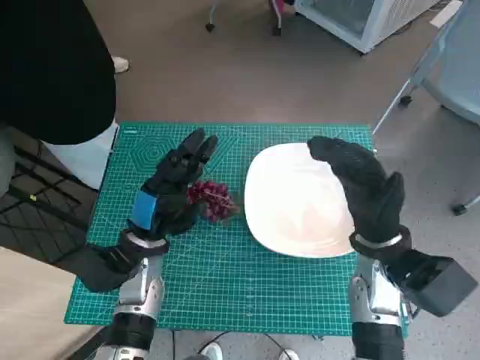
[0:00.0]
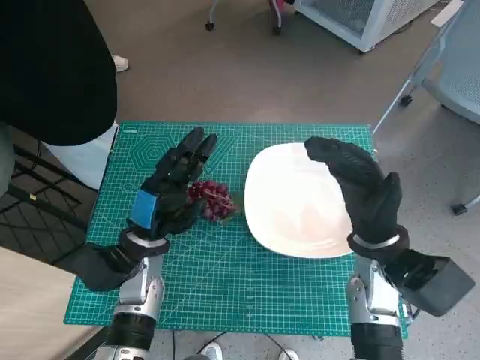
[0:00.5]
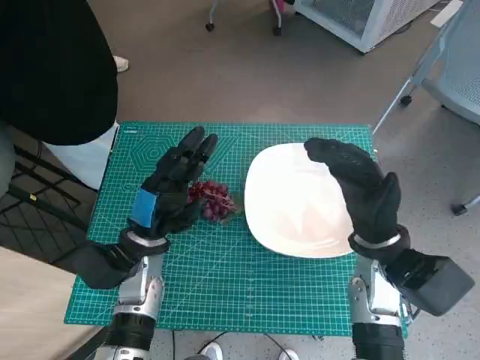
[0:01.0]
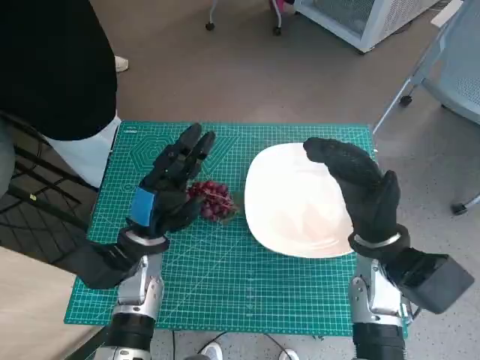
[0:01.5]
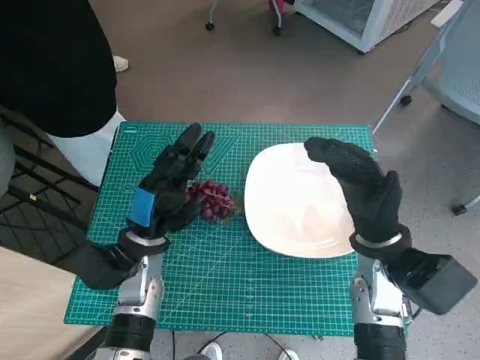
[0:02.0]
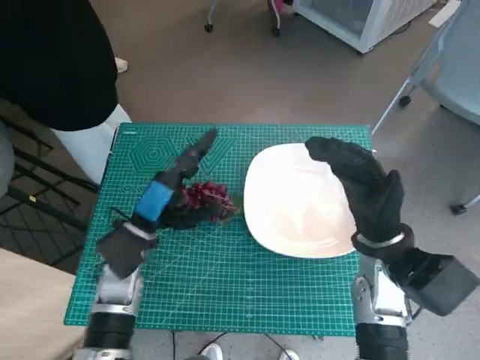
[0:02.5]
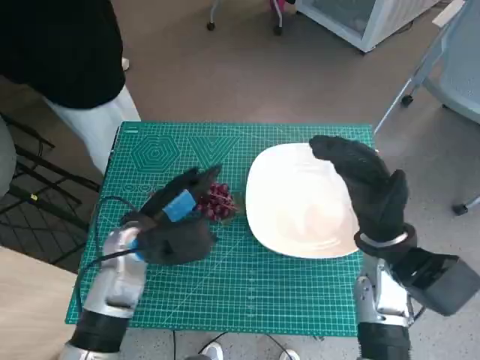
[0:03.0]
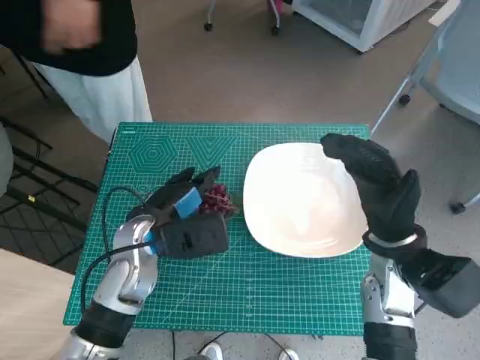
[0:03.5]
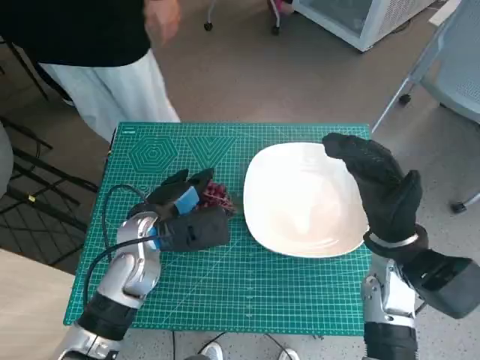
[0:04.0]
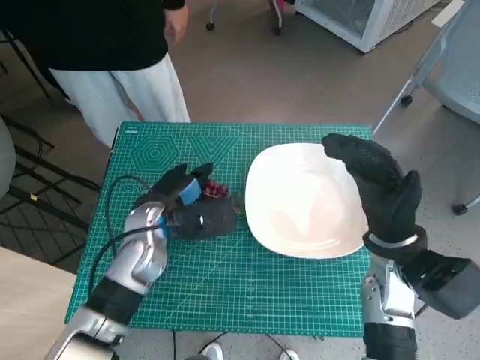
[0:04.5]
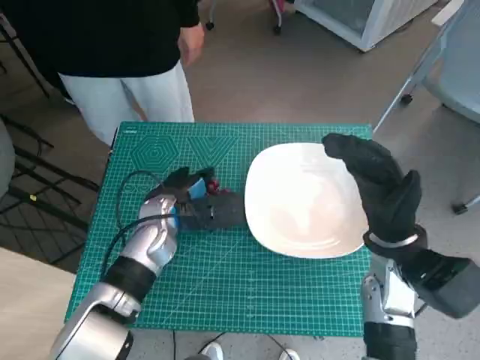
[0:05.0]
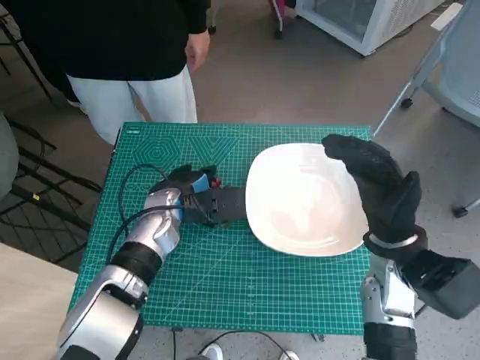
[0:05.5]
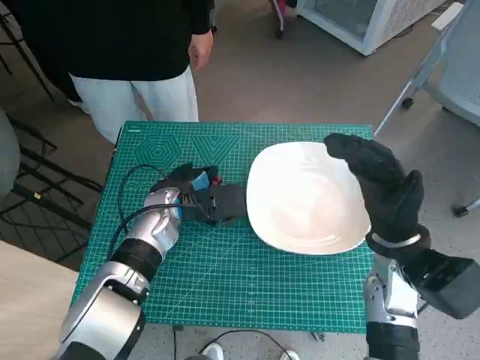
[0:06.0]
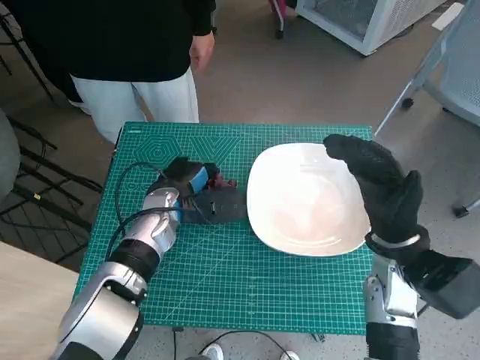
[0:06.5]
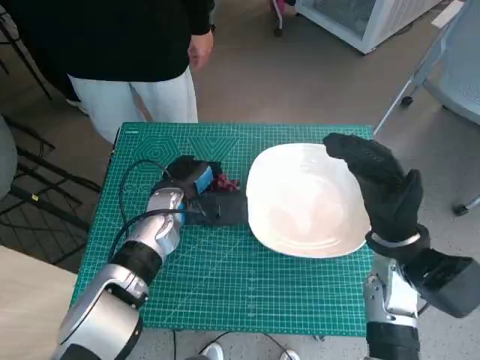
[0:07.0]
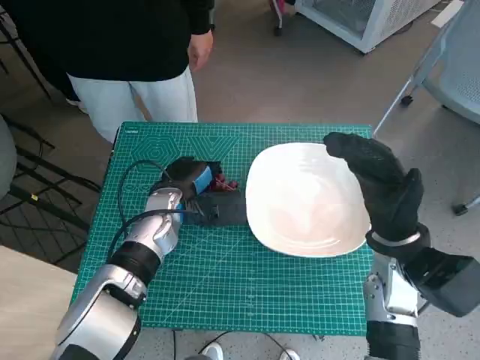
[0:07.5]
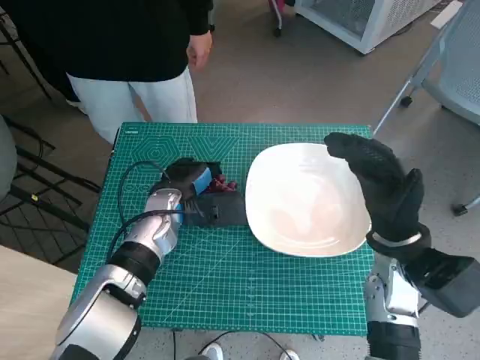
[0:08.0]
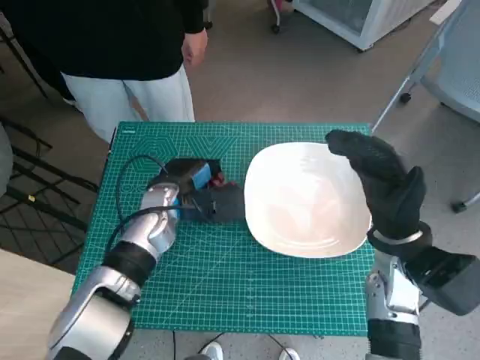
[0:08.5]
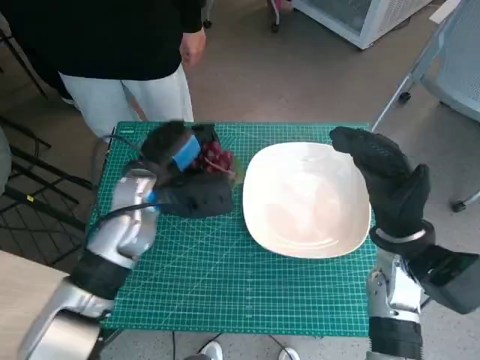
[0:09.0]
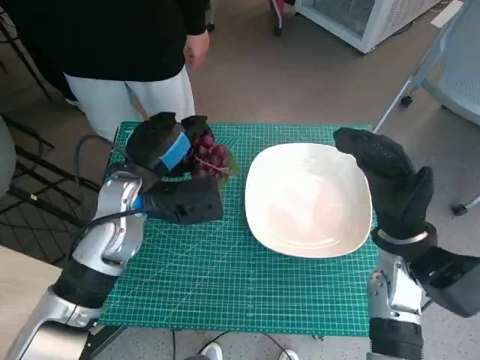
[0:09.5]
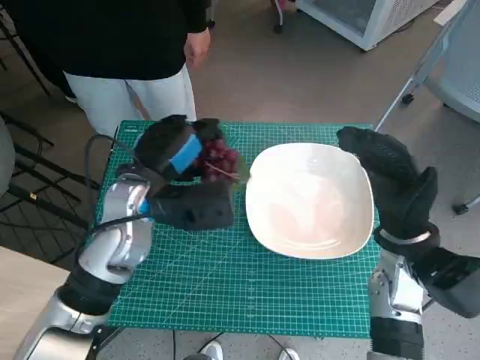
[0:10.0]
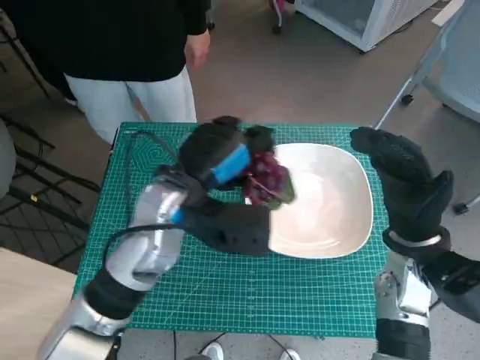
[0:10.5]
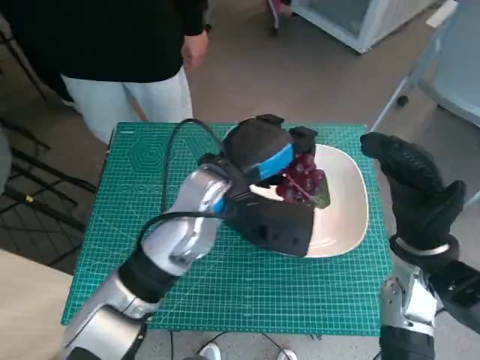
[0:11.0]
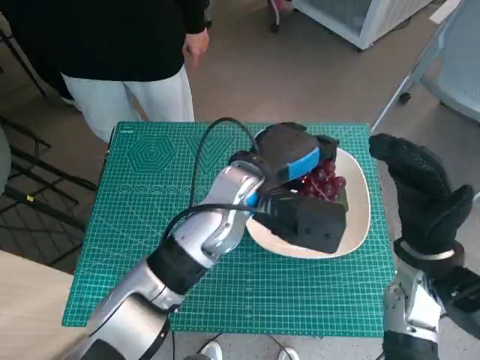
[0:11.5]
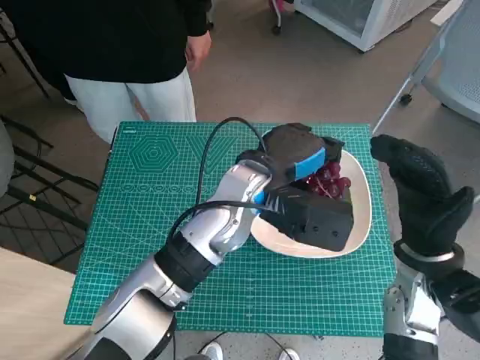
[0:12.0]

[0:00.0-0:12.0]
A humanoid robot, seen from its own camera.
Task of the whole recording: Pick up the grapes and put them on the plate.
Step, 0:00.0 to 0:06.5: Grasp the grapes with left hand.
0:04.0 to 0:06.0: The left hand travels forward by roughly 5 cm.
0:06.0 to 0:08.0: There are only small adjustments of the hands.
0:08.0 to 0:10.0: The left hand travels upward by about 10 cm.
0:10.0 to 0:12.0: The left hand is displaced to the right by roughly 15 cm.

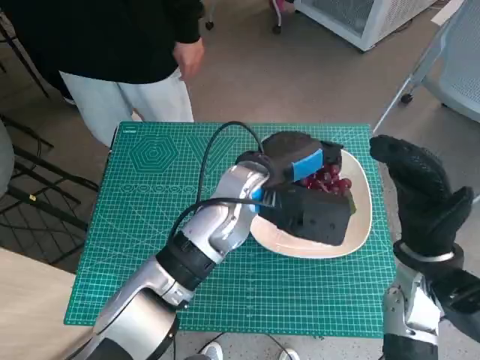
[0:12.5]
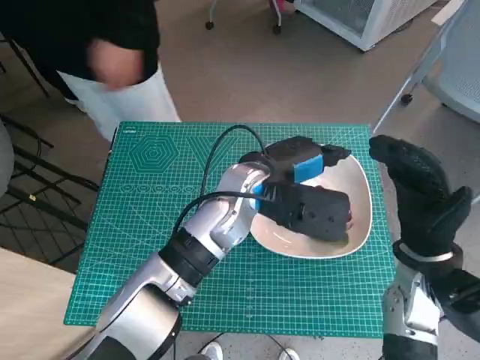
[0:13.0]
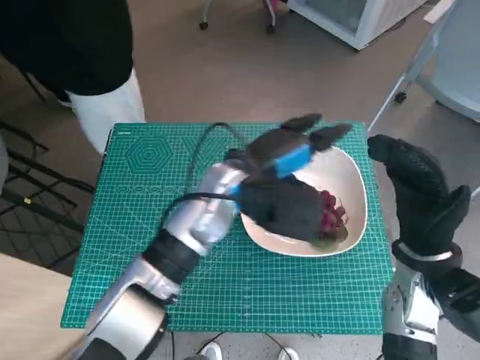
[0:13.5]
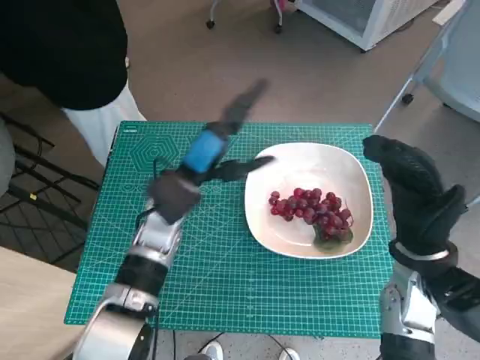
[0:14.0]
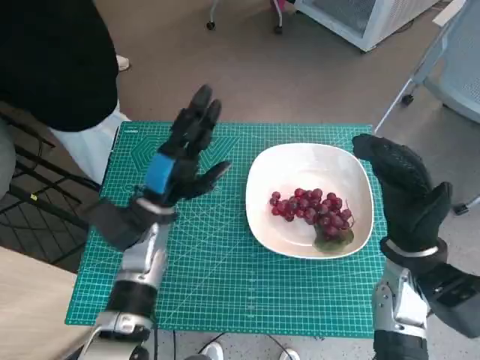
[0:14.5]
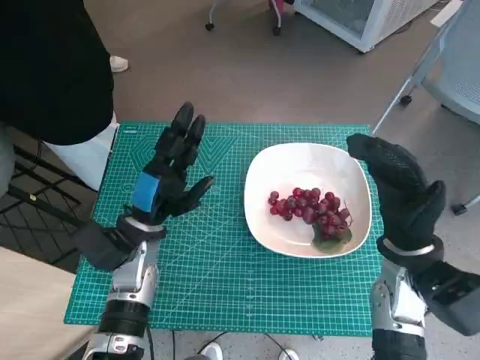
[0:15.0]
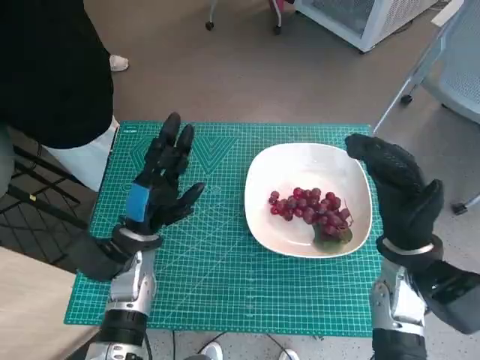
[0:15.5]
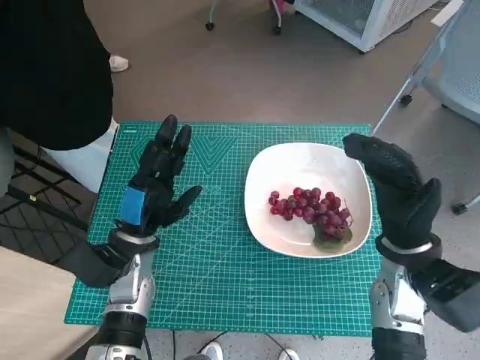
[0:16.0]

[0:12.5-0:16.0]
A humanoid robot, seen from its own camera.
Task of the whole recording: Pick up the grapes and put them on the plate.
0:12.5 to 0:14.5: The left hand is displaced to the left and downward by some 15 cm.
0:14.5 to 0:16.0: The left hand ends up about 5 cm from where it was.

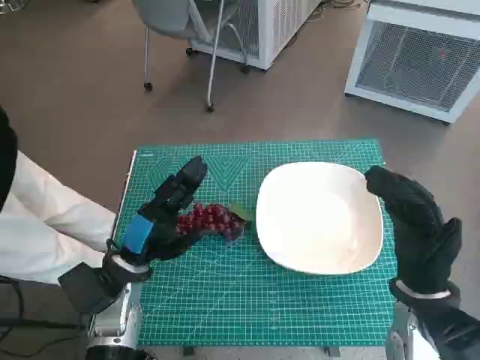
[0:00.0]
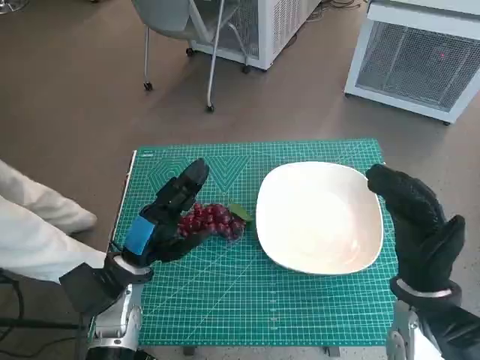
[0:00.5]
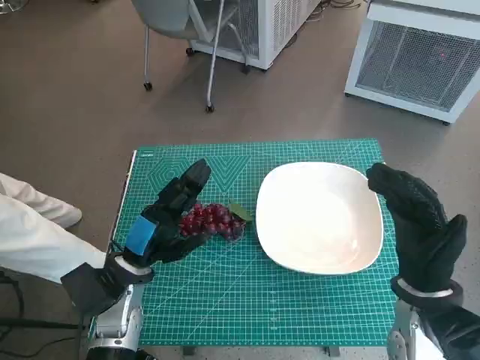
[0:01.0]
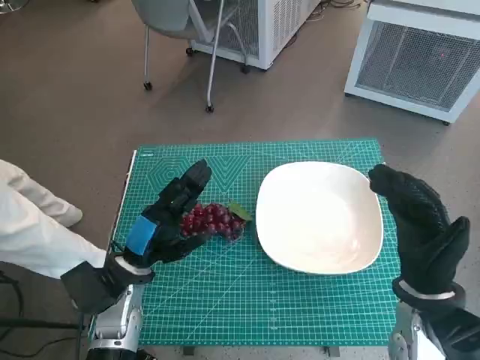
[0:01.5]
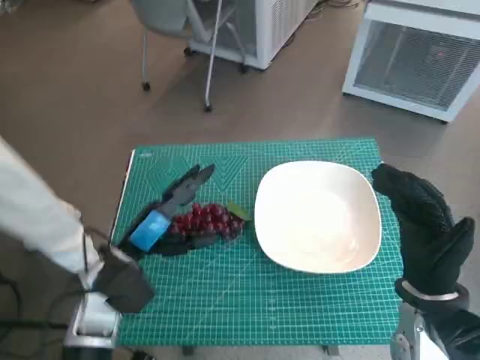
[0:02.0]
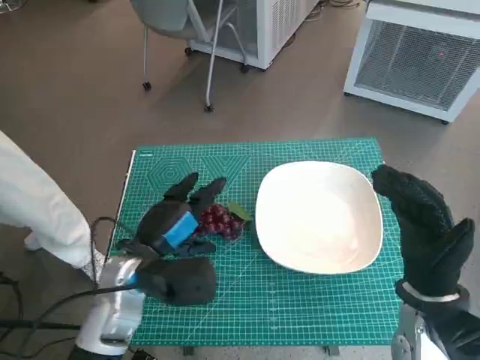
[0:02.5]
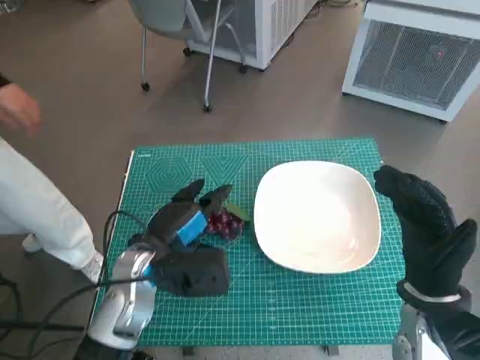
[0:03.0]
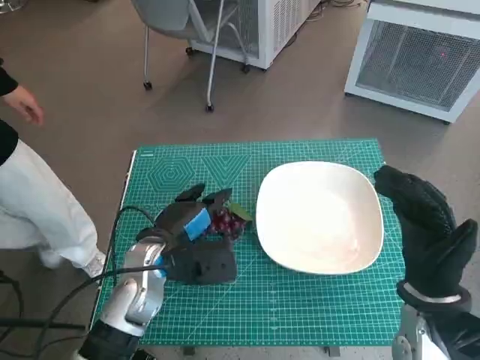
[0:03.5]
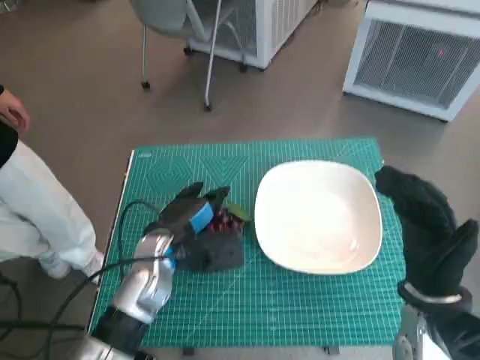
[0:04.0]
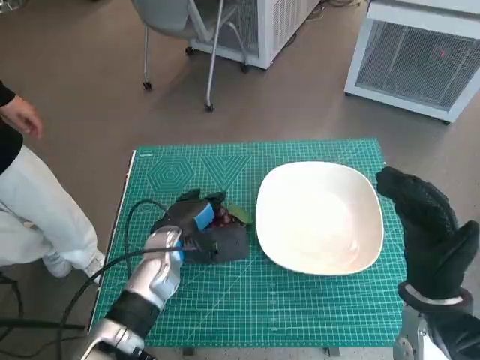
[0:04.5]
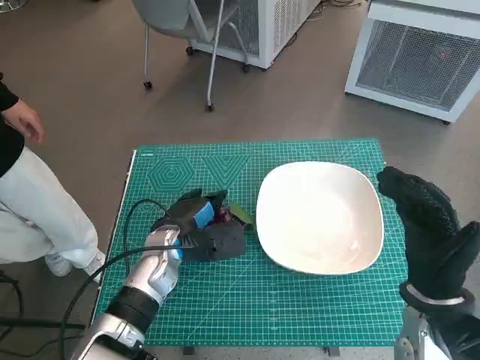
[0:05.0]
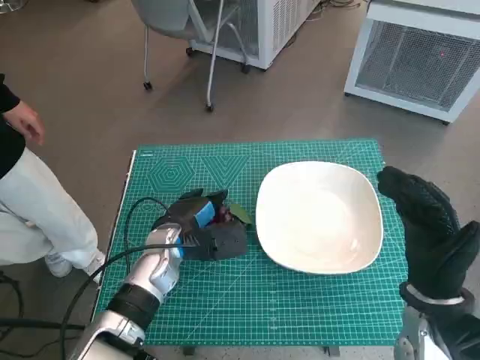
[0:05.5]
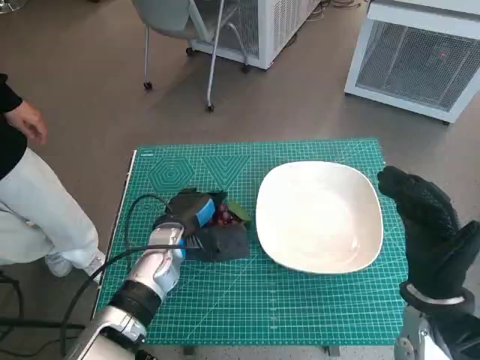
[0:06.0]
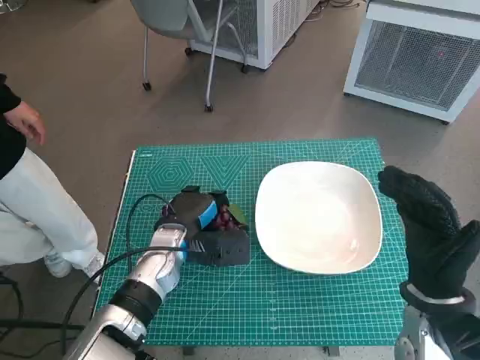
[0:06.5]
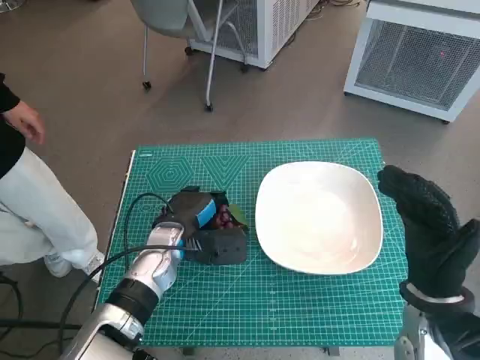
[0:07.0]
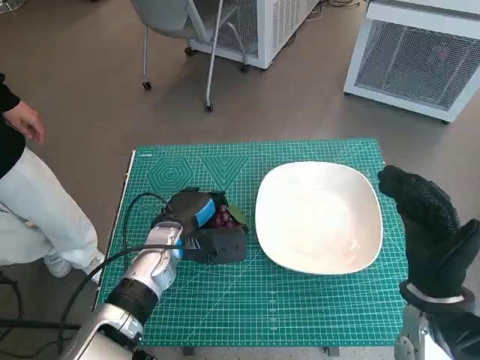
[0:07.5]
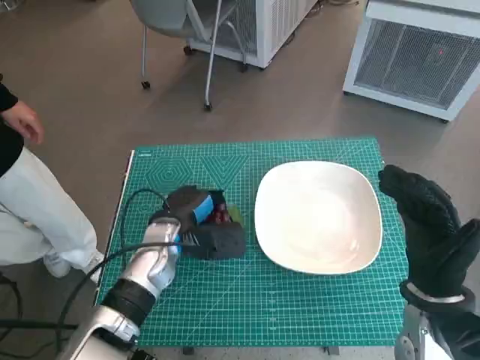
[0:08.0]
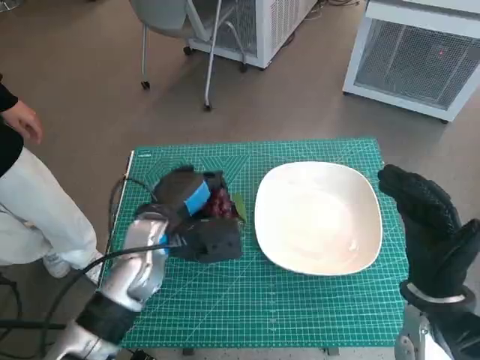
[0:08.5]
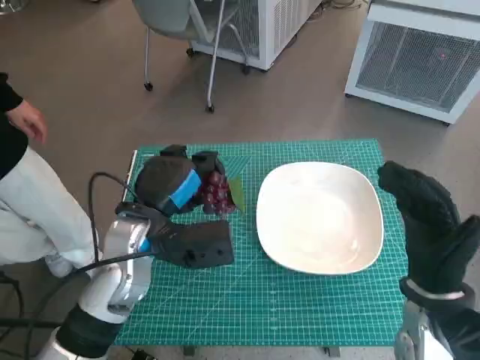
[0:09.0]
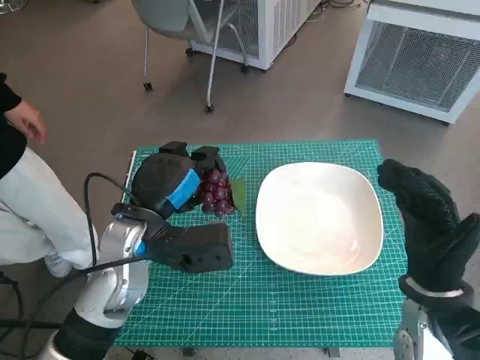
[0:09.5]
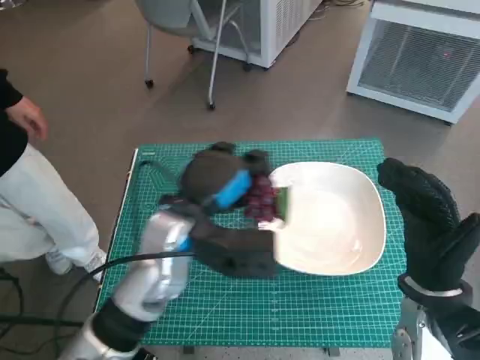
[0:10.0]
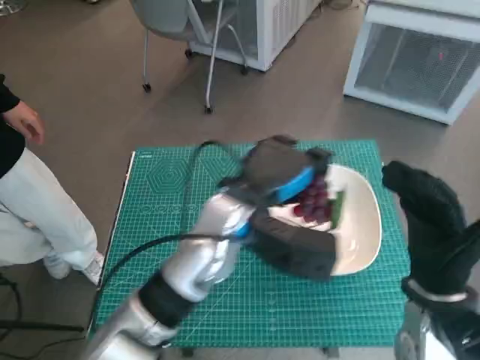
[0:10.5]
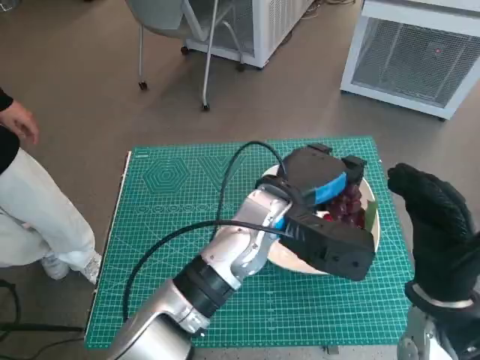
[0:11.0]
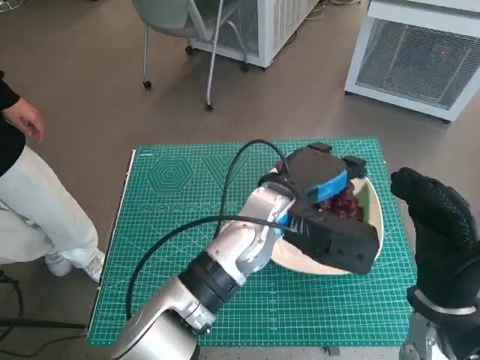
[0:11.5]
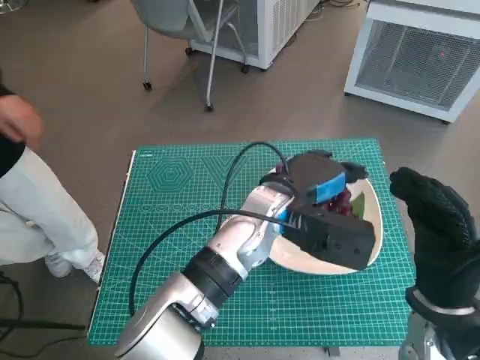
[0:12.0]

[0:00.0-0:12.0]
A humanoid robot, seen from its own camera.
Task of the whole recording: Pick up the grapes and put them on the plate.
Step, 0:00.0 to 0:06.0: Grasp the grapes with left hand.
0:02.0 to 0:04.0: The left hand goes roughly 5 cm to the right.
0:04.0 to 0:08.0: The hands make only small movements.
0:08.0 to 0:10.0: The left hand travels upward by roughly 10 cm.
0:10.0 to 0:12.0: The left hand goes some 10 cm to the right.
